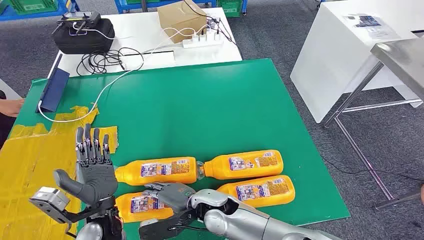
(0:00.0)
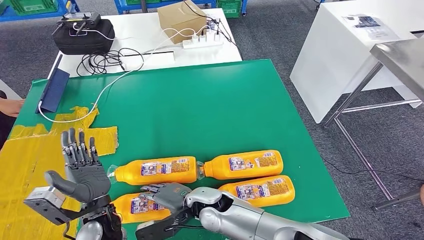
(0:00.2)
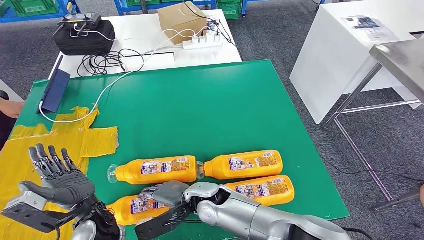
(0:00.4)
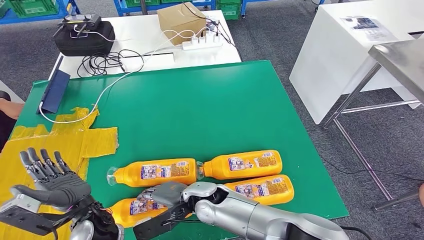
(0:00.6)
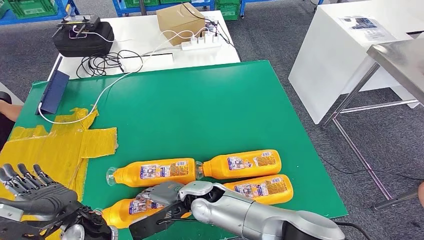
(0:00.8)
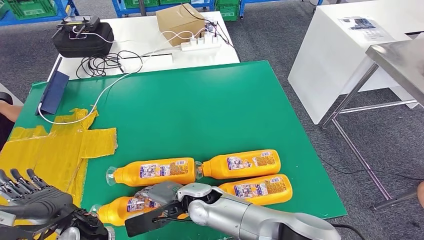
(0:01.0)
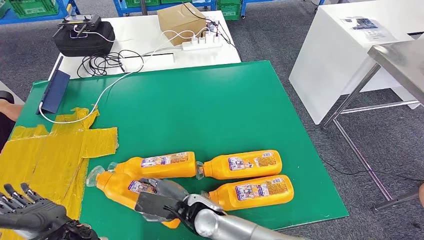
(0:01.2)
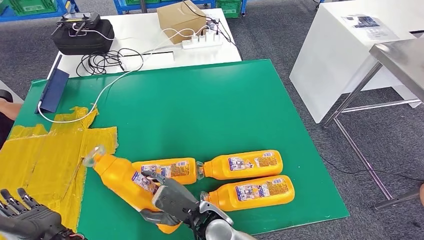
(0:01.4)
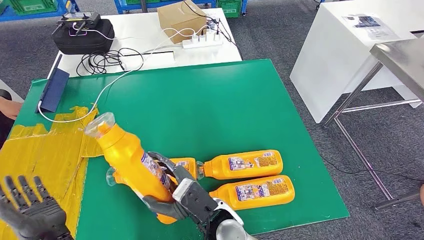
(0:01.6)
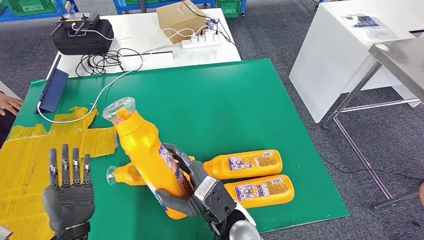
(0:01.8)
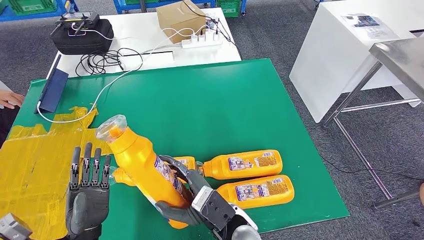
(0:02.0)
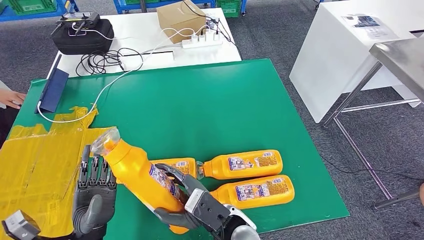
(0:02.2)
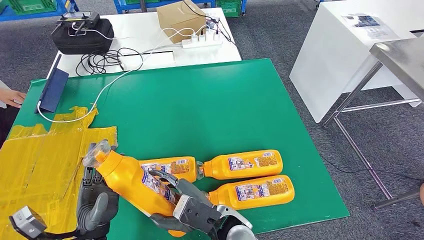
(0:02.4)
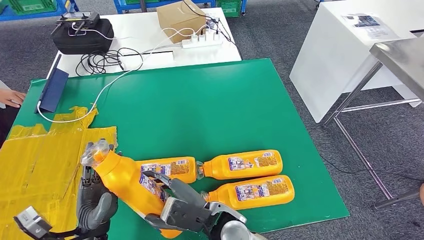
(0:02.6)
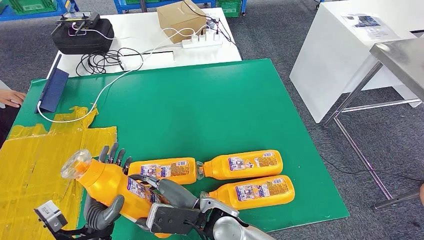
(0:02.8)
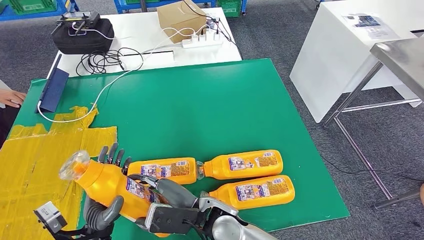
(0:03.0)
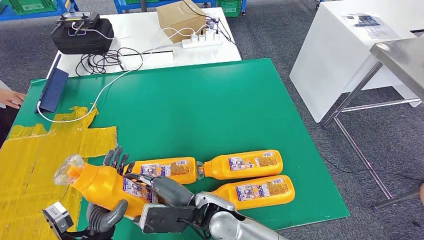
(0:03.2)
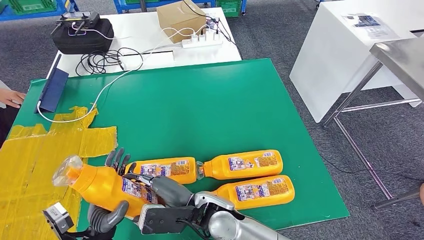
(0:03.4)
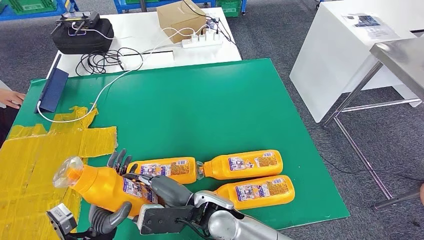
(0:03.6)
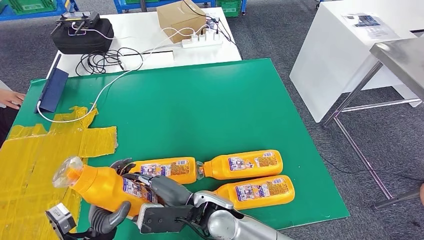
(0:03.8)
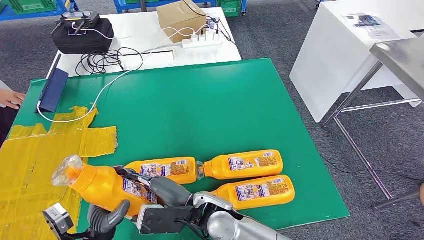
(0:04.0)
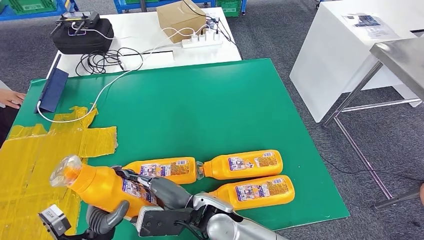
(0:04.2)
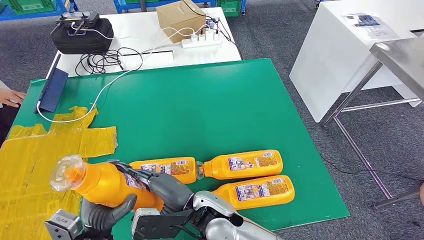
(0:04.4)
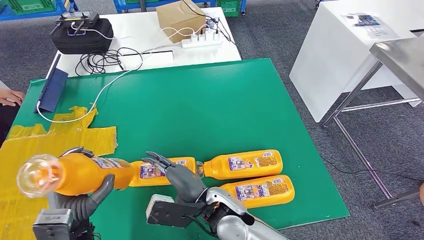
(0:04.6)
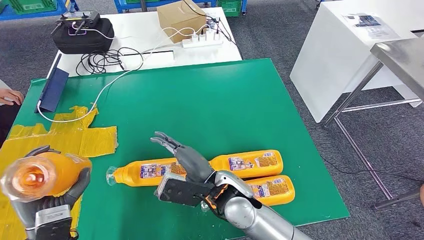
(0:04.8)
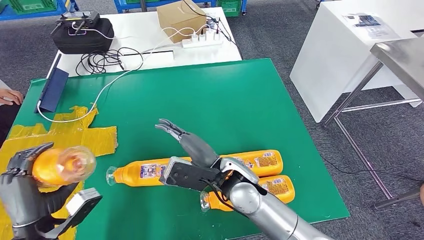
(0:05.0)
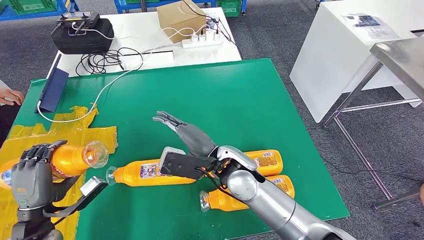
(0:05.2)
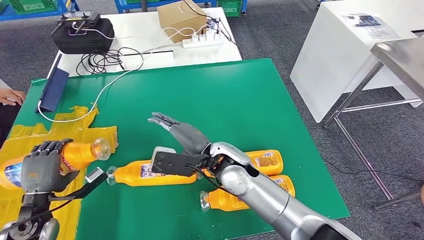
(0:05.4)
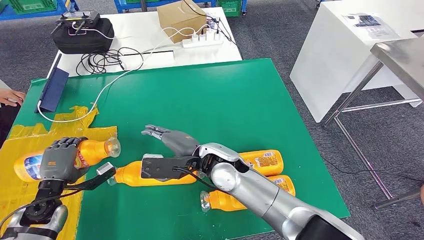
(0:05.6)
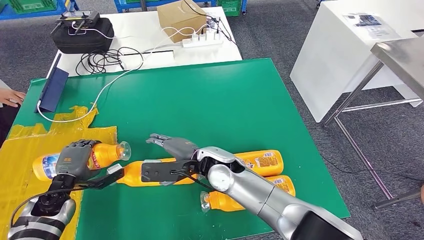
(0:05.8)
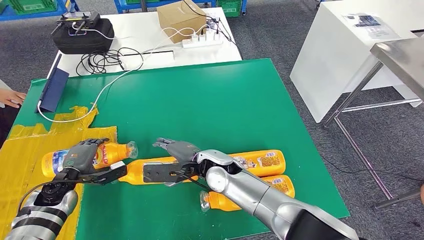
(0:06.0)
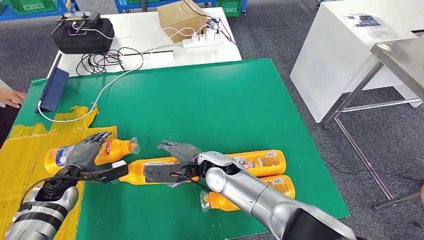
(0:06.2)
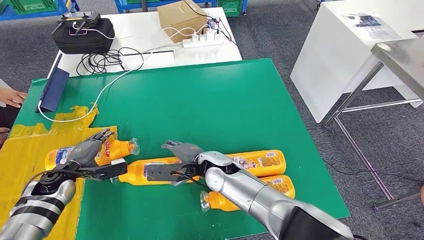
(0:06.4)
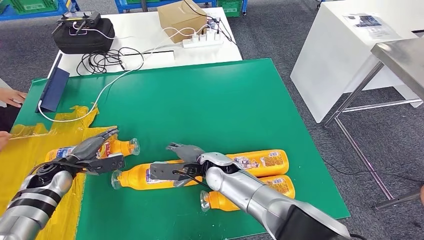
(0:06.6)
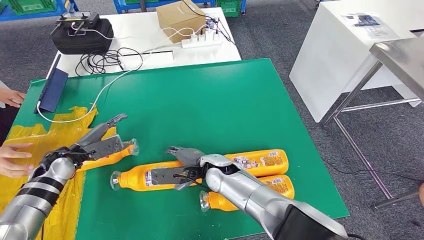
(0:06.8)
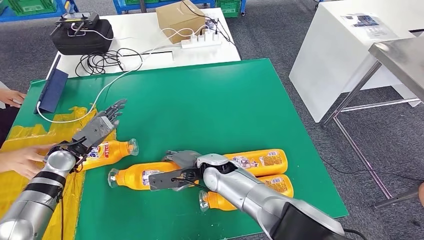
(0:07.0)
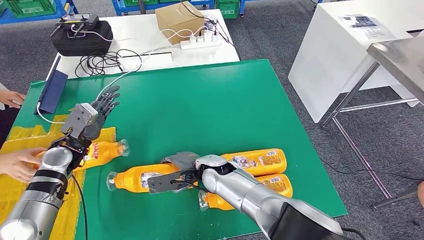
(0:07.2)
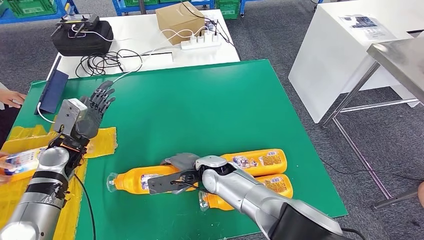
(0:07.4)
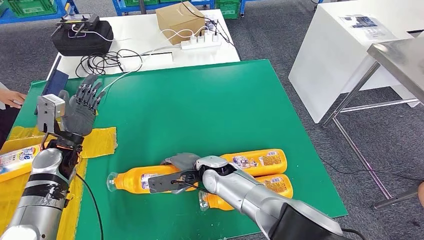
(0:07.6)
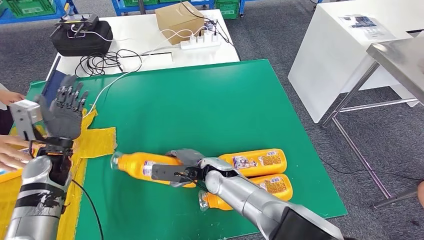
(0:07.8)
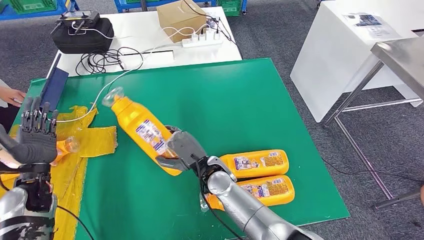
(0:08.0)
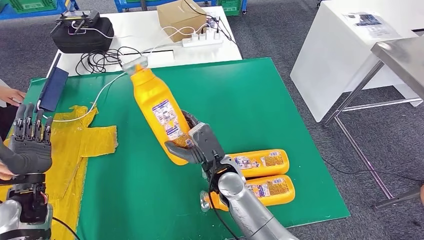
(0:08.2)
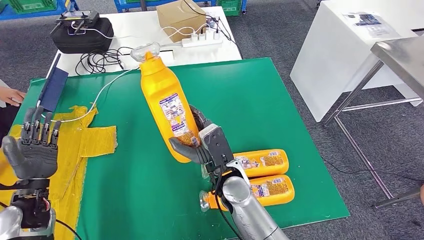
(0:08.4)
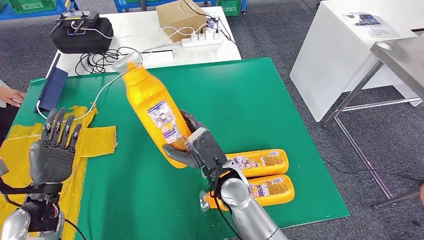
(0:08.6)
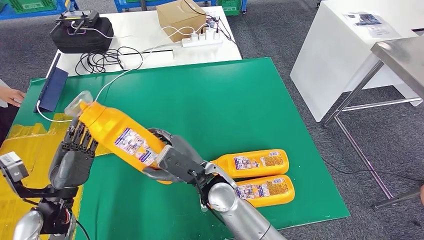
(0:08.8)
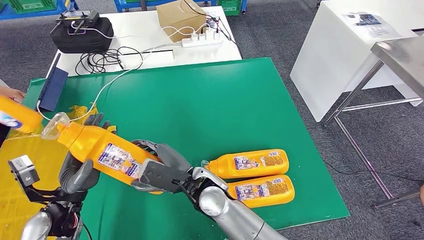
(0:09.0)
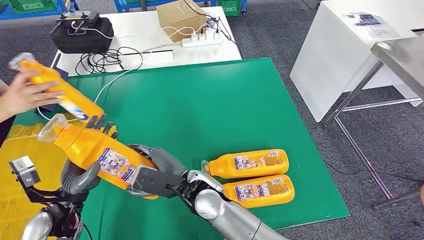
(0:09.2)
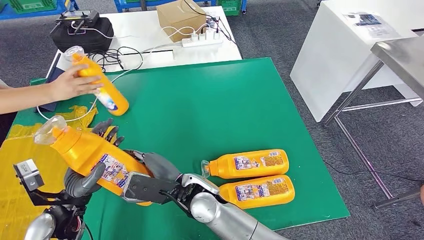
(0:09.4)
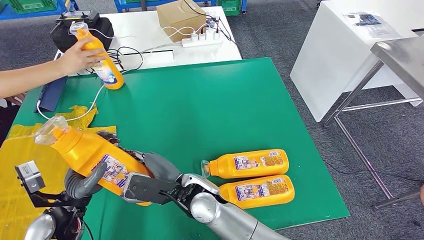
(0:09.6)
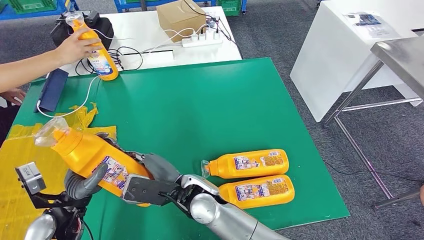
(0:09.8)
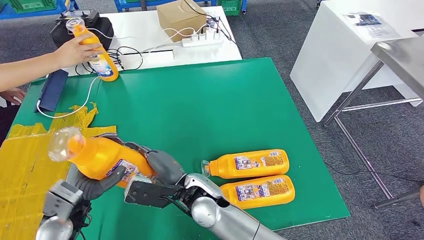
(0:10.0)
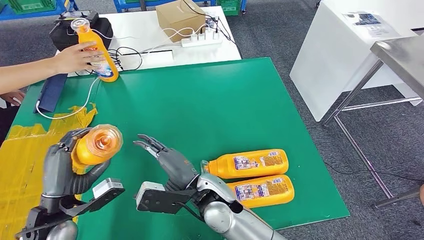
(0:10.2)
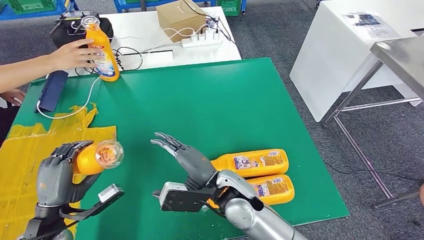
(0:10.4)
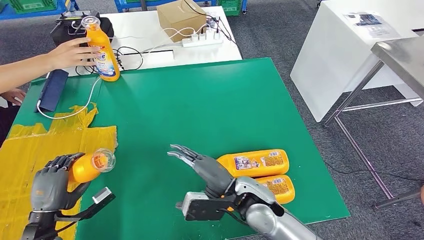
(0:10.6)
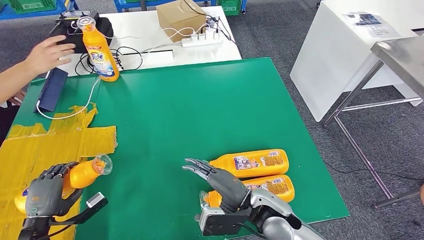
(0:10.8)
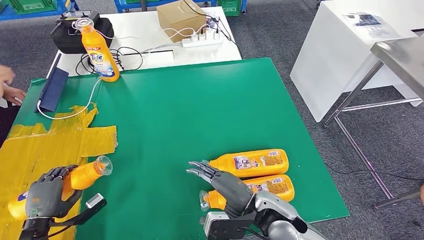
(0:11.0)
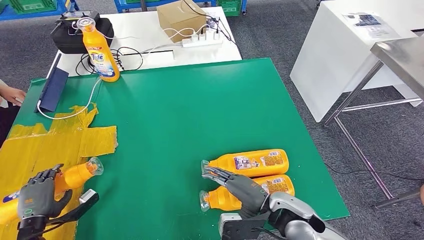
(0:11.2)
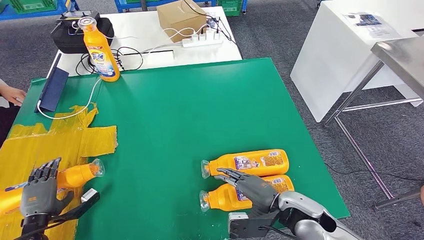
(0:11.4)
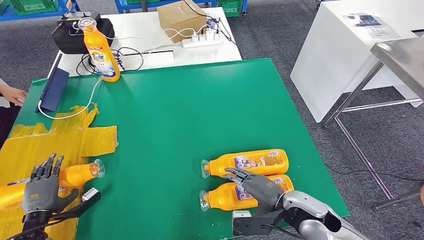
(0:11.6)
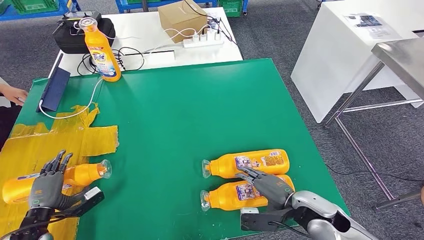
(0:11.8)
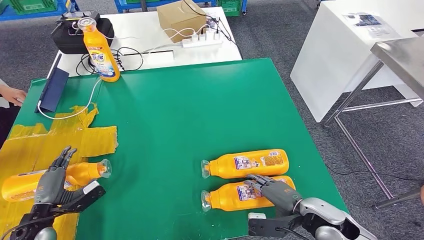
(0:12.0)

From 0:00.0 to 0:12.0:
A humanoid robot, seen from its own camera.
Step, from 0:00.0 to 0:03.2: Take the fast-moving consumer goods bottle from the table.
Step, from 0:03.4 to 0:06.6: Flip the fast-moving consumer goods bottle to the front side.
Step, from 0:06.8 to 0:09.6: Pick up the fast-moving consumer goods bottle from the table.
From 0:09.0 to 0:10.4: The right hand shifts some 5 cm to the right.

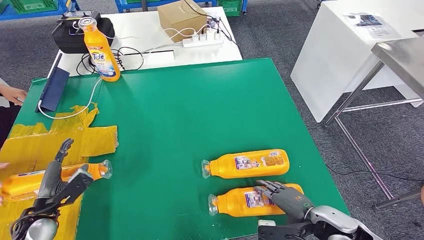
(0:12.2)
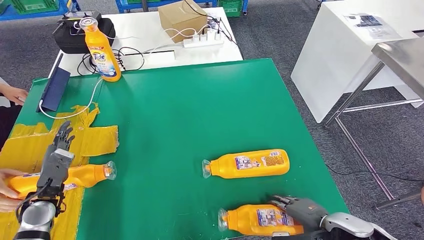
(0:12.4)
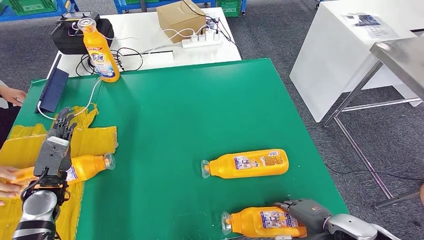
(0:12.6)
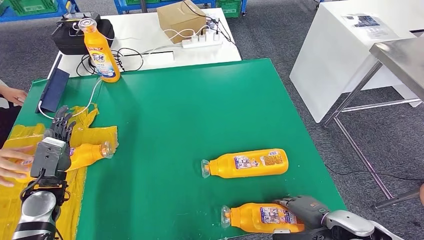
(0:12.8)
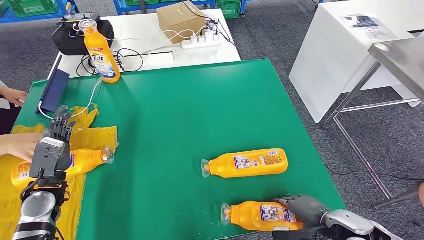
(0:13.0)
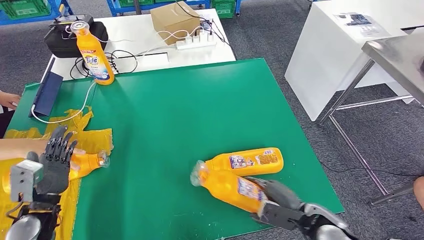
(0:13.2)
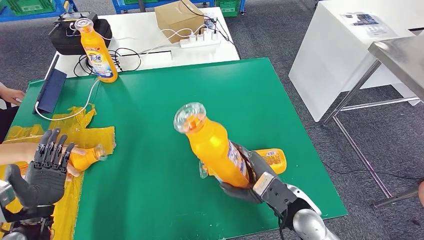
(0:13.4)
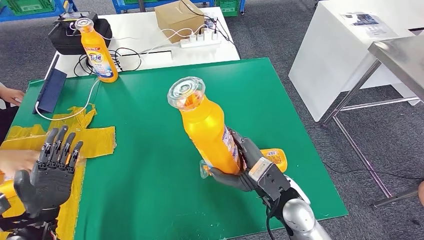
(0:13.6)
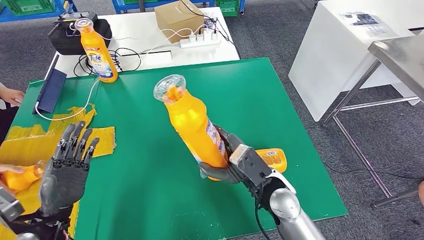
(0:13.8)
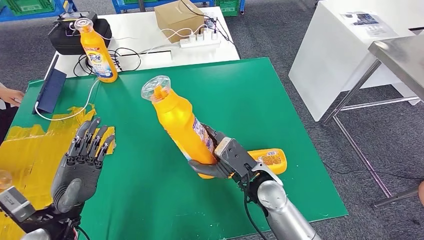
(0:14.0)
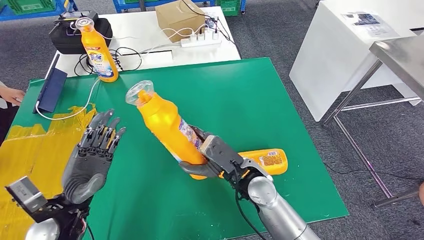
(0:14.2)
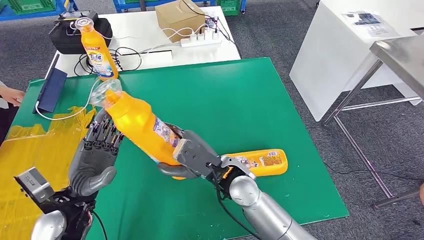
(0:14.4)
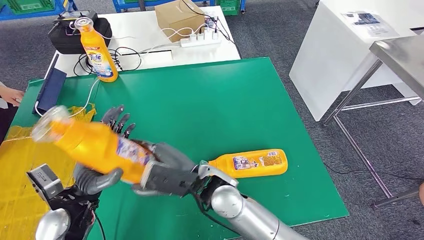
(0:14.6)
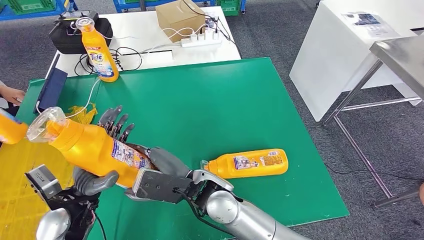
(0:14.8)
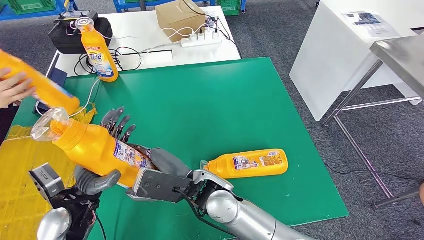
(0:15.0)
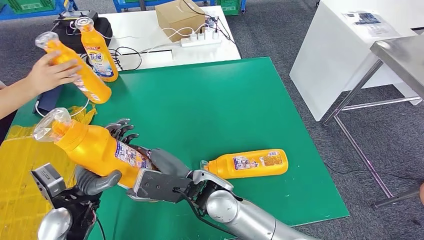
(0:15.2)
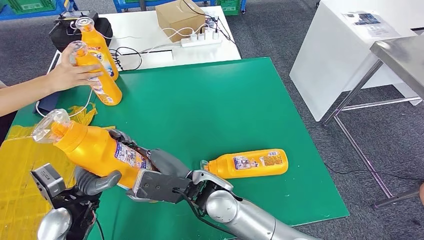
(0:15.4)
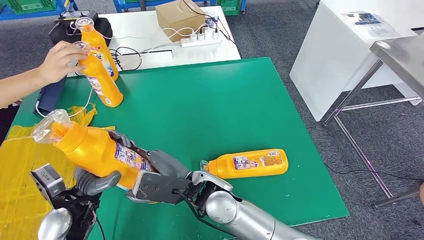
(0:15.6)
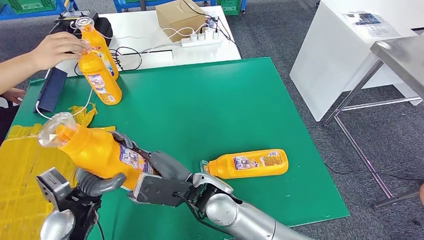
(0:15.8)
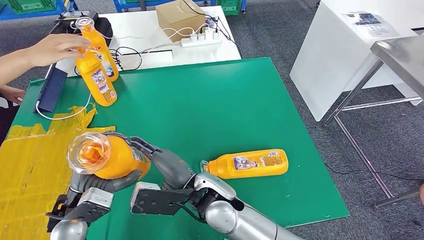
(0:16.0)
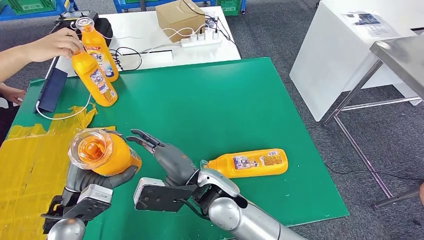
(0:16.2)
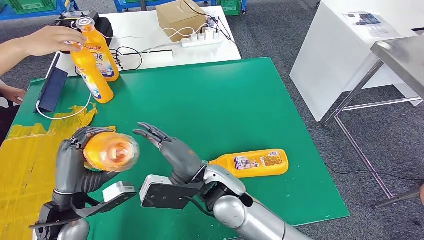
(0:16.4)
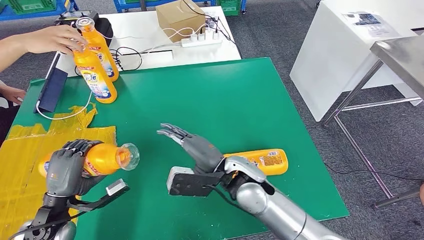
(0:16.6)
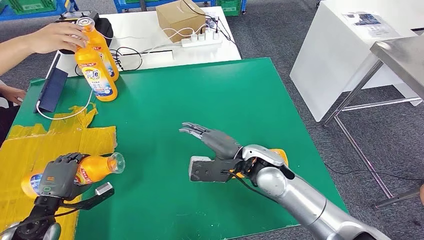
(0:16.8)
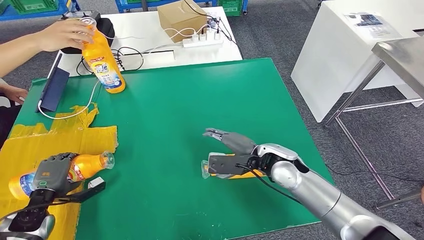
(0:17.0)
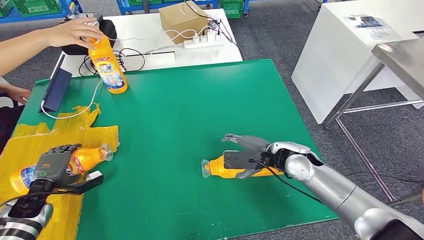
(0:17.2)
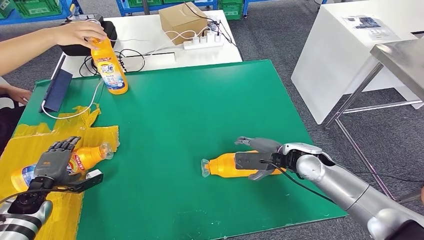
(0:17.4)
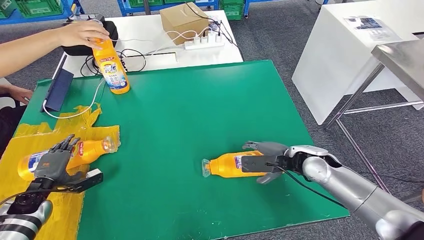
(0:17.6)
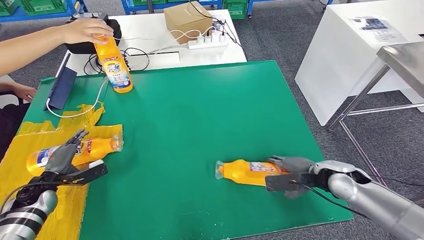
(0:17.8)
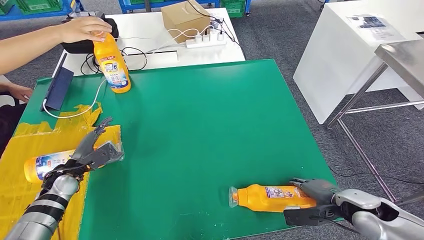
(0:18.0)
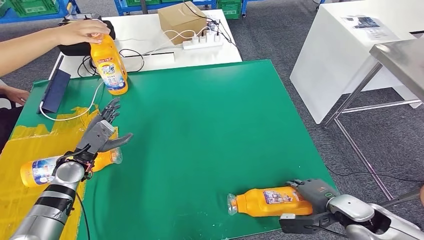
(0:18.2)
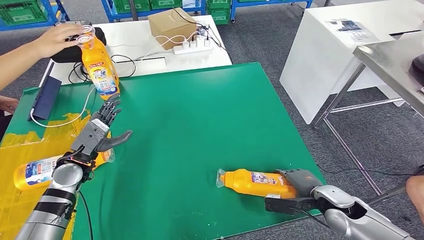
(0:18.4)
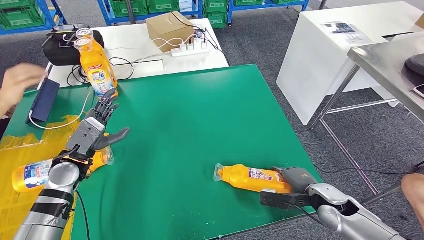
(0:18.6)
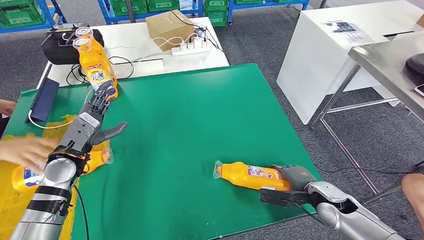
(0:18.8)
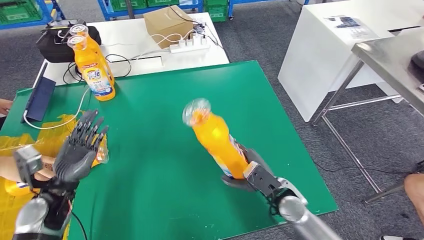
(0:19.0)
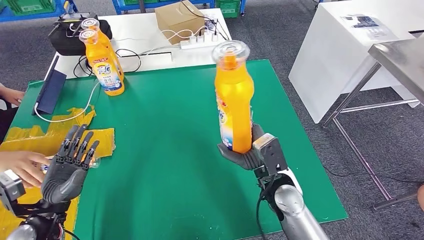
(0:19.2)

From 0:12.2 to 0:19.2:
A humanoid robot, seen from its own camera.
Step, from 0:12.8 to 0:15.4: Pick up the fast-moving consumer goods bottle from the table.
Step, from 0:15.6 to 0:18.0: Flip the fast-moving consumer goods bottle to the front side.
